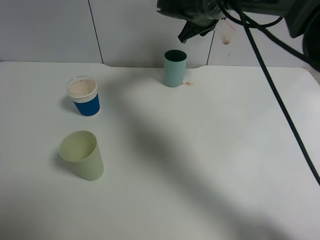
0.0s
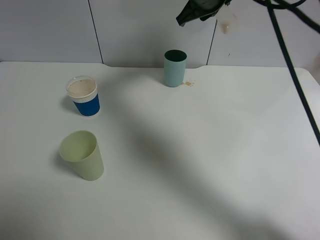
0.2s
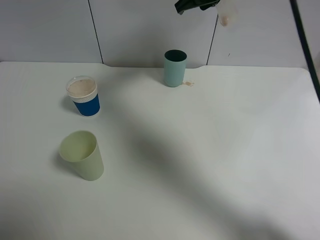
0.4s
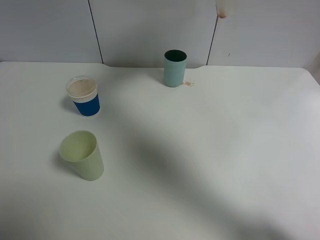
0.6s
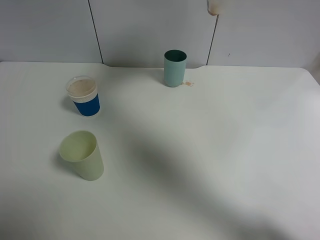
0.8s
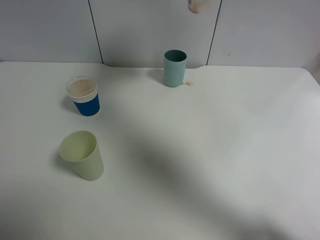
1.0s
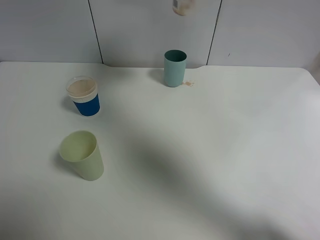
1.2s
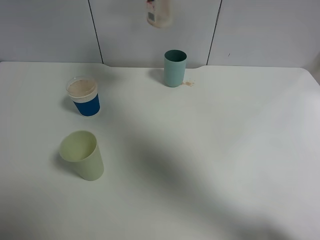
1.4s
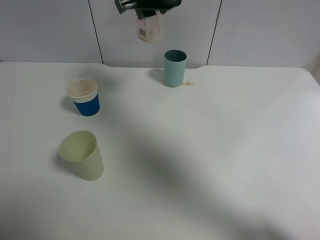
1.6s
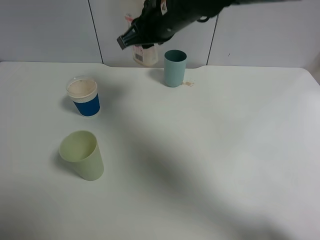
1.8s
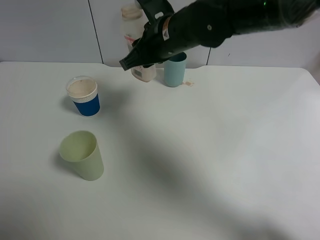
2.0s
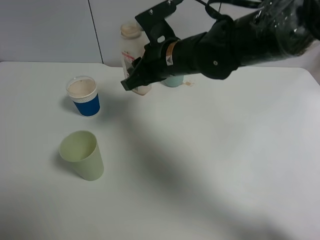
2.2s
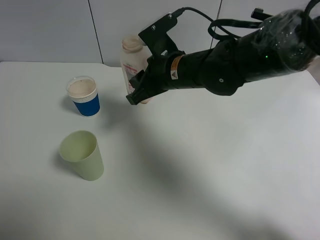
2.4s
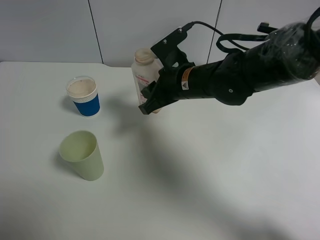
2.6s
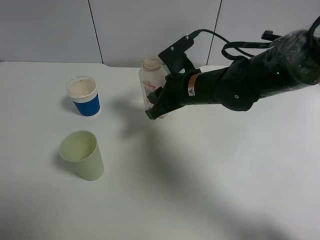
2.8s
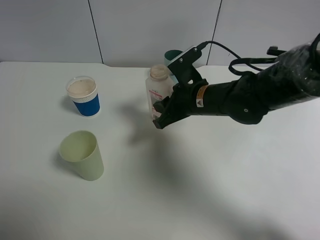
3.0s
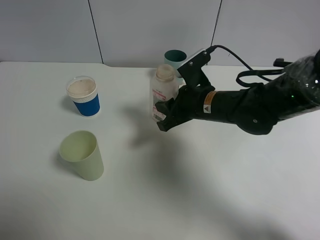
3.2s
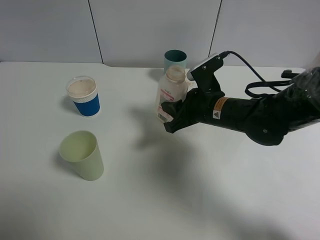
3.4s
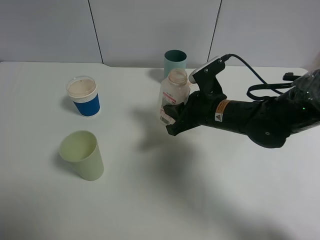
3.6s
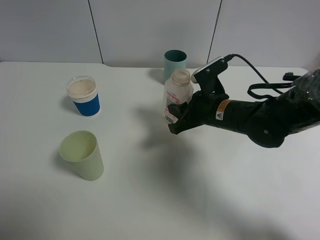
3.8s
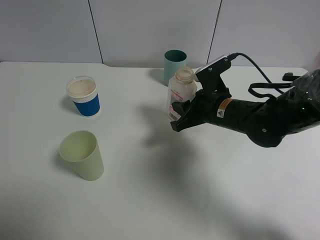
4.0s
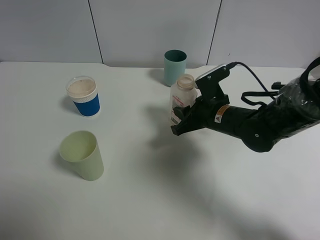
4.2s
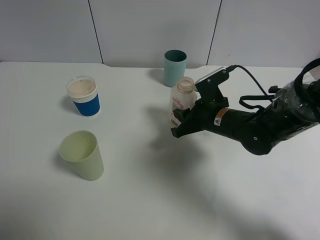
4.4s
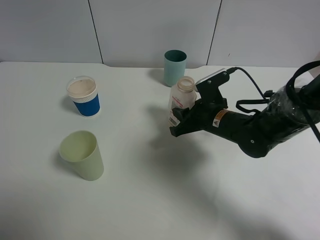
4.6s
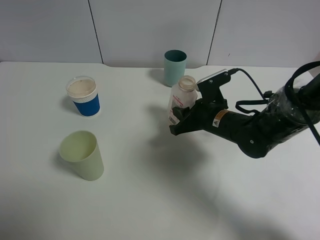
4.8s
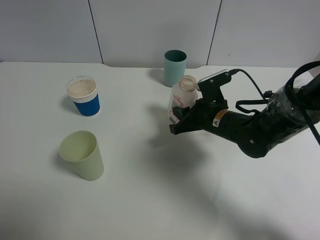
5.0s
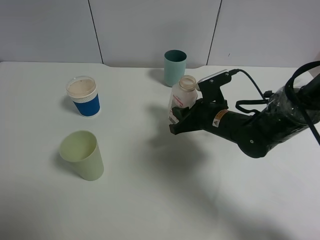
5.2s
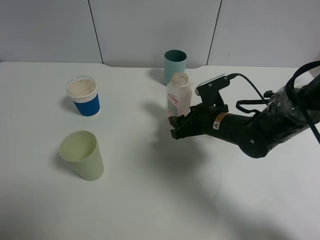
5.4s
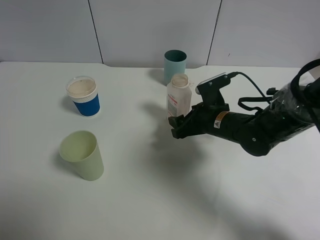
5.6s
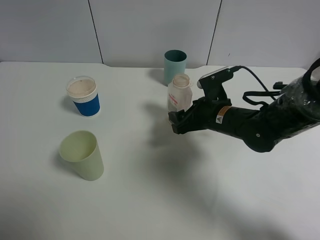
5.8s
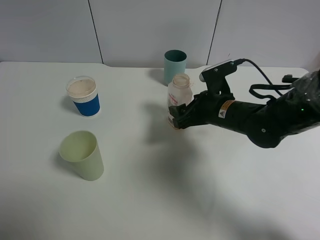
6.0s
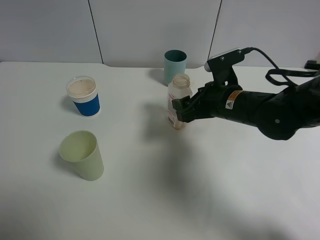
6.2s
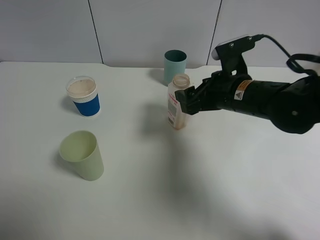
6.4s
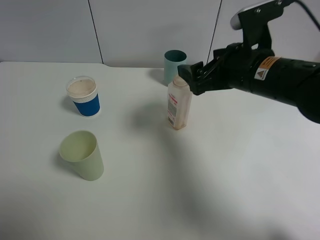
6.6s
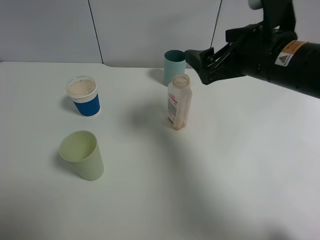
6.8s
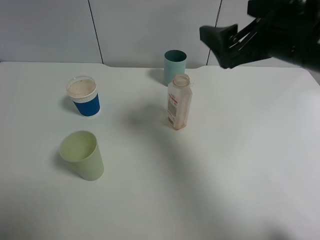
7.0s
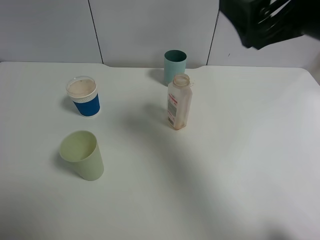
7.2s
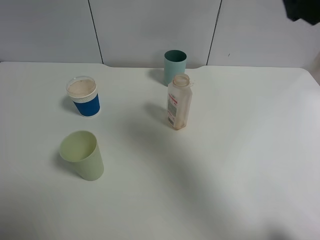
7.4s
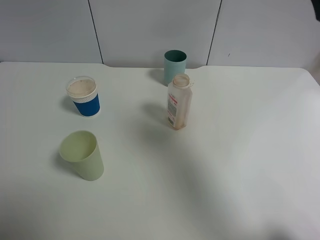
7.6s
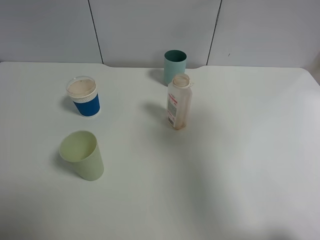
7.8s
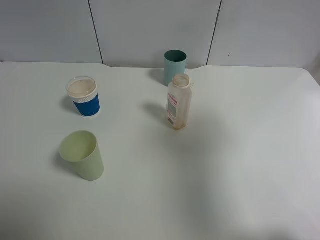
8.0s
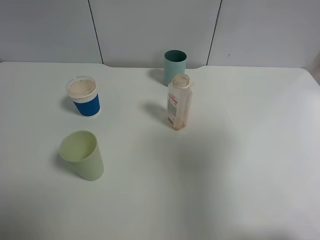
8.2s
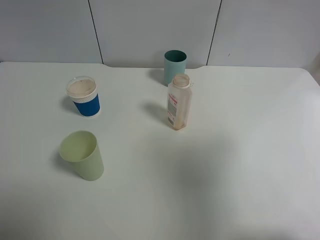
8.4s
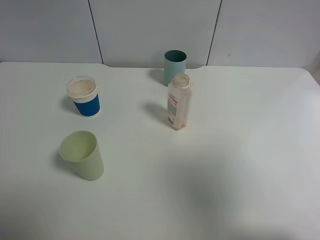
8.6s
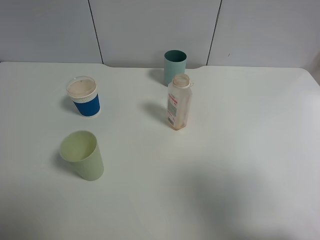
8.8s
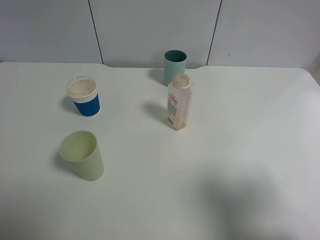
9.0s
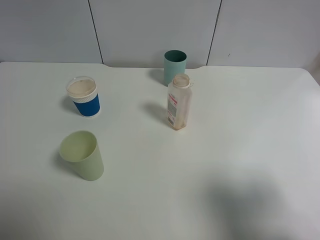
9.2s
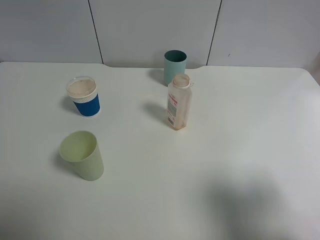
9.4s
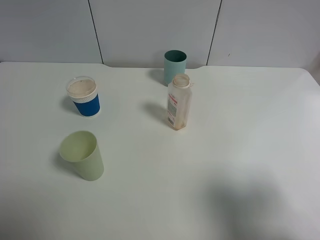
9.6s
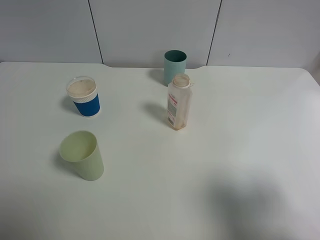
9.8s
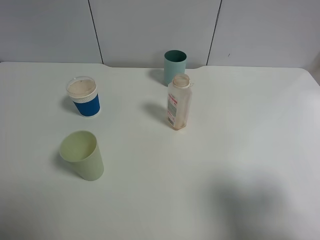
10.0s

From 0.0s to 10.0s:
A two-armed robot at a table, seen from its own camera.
Task of the whole recording: use a gripper to hold the bottle of the drink and pour it into a random cup.
Step, from 0.2s to 5.6s: Place the cranberry juice bottle on the table with the right gripper.
From 0.0s to 1.4s: The right gripper is displaced upward and backward by roughly 15 cm.
From 1.4s to 2.8s: The right gripper goes roughly 20 cm downward.
From 2.8s to 4.2s: The right gripper moves to the right and downward, some 10 cm.
From 4.2s to 5.8s: The right gripper opens its fingers.
From 5.8s to 7.2s: The right gripper shifts roughly 25 cm upward and backward.
From 7.2s to 8.6s: The right gripper moves backward and to the right, about 20 cm.
From 8.6s to 10.0s: The right gripper moves downward, about 10 cm.

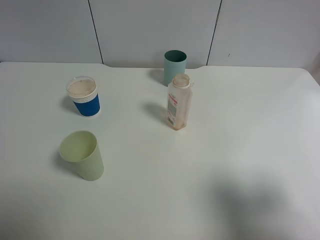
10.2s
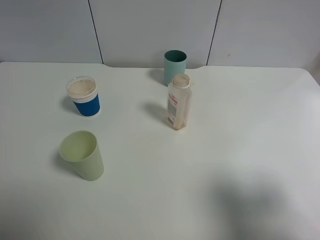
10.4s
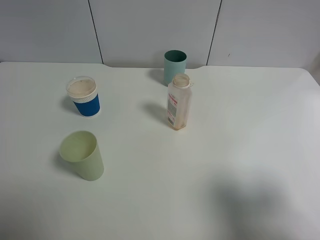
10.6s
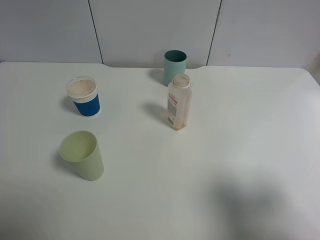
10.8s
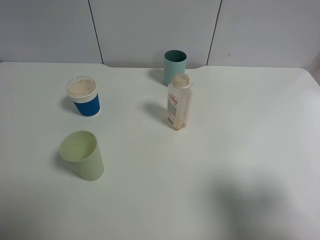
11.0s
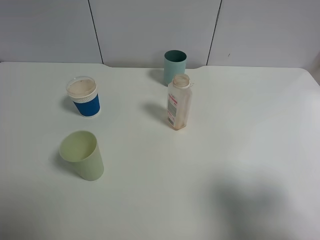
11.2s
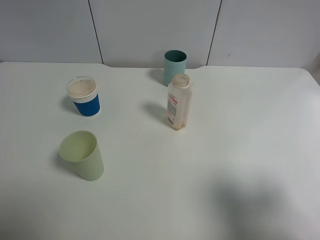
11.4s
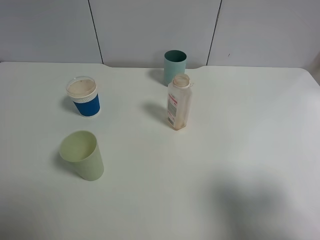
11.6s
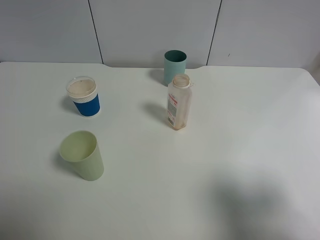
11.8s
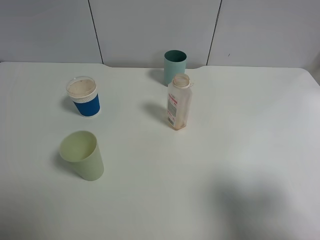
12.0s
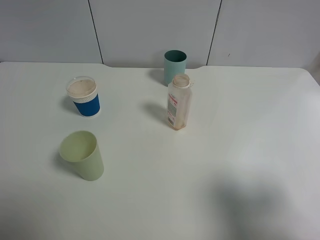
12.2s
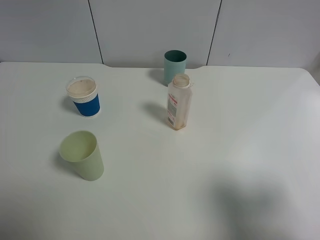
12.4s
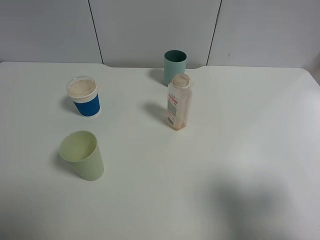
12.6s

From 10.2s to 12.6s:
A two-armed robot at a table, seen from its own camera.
Task of the whole recording: use a gripper to hold the bottle of the drink and pour it into a random cup.
From 10.2s to 12.6s: Neither gripper changes place.
